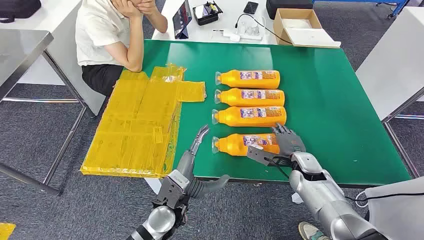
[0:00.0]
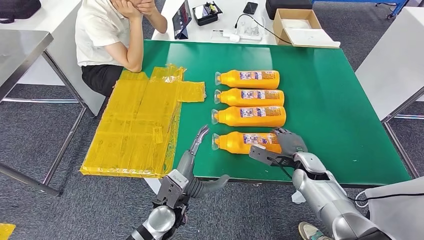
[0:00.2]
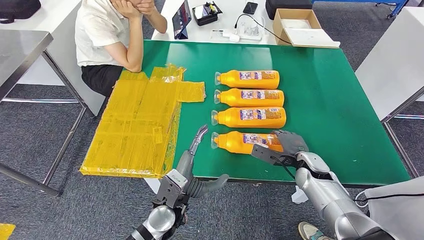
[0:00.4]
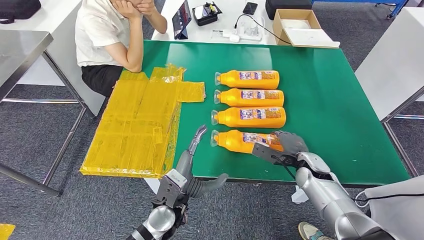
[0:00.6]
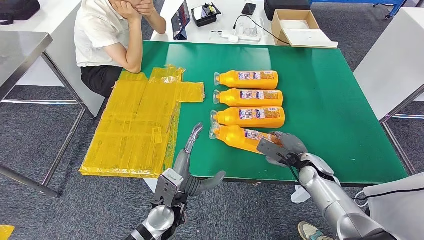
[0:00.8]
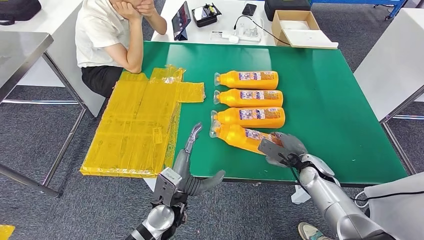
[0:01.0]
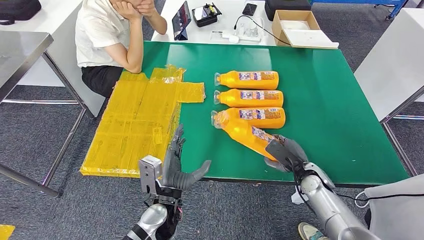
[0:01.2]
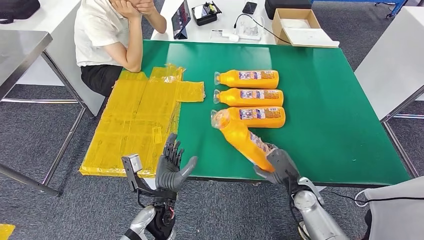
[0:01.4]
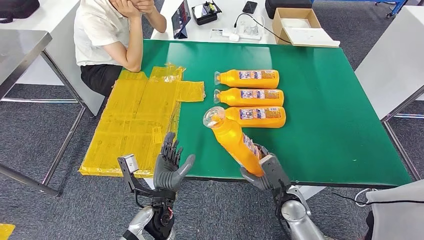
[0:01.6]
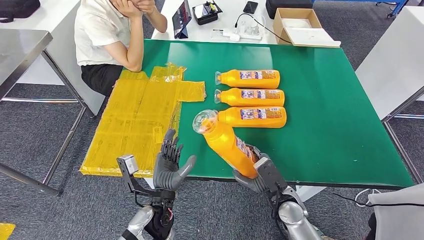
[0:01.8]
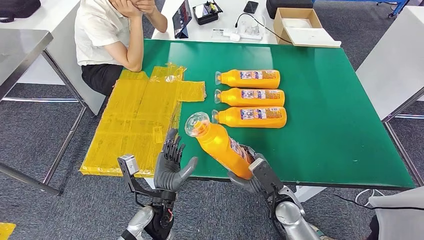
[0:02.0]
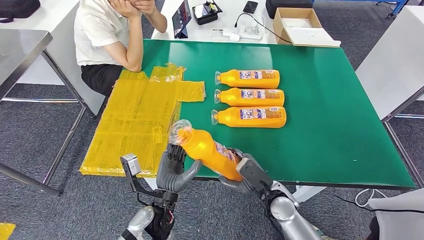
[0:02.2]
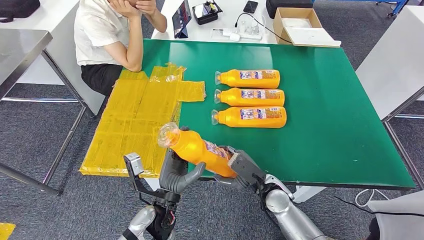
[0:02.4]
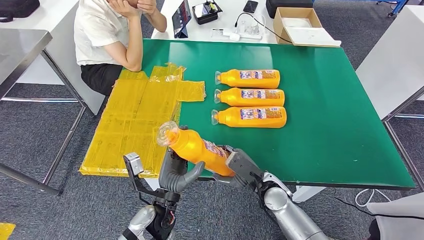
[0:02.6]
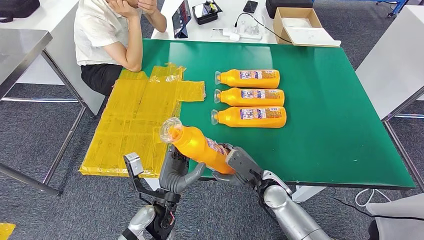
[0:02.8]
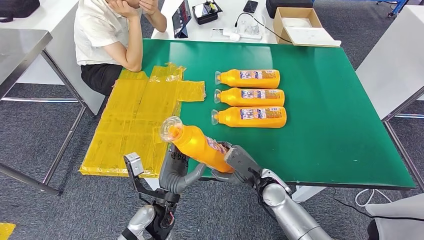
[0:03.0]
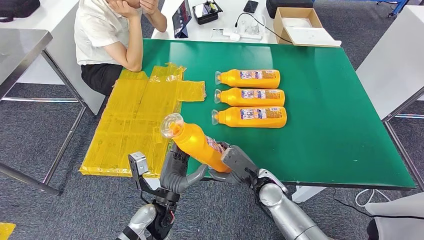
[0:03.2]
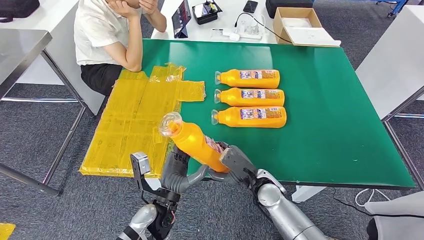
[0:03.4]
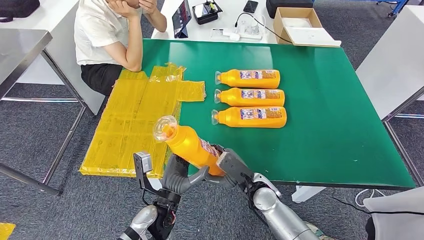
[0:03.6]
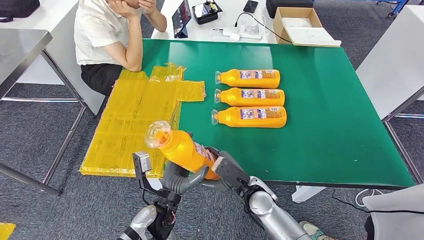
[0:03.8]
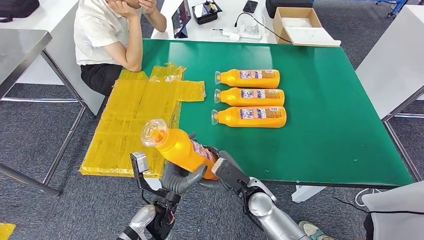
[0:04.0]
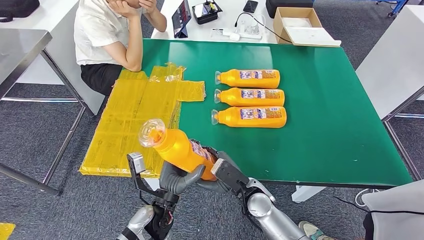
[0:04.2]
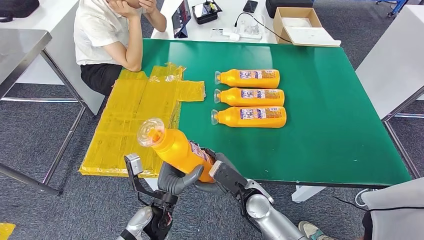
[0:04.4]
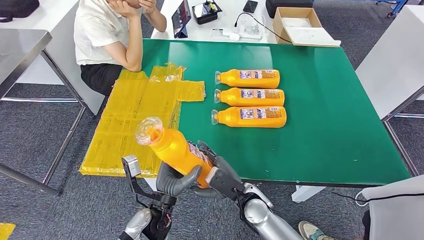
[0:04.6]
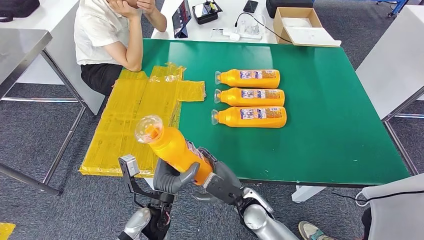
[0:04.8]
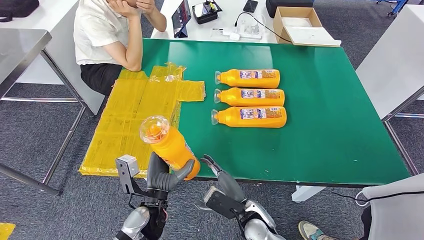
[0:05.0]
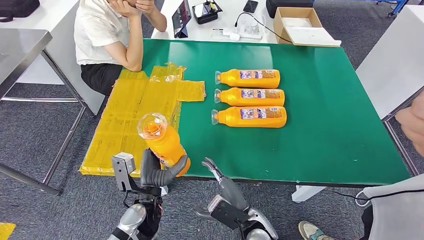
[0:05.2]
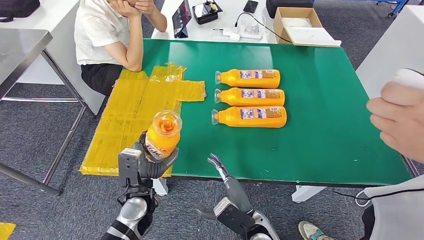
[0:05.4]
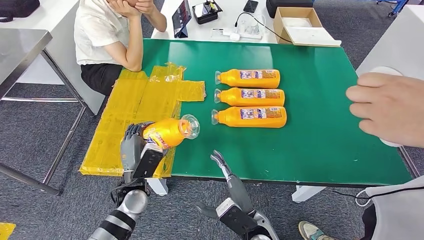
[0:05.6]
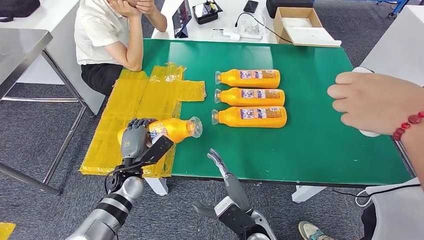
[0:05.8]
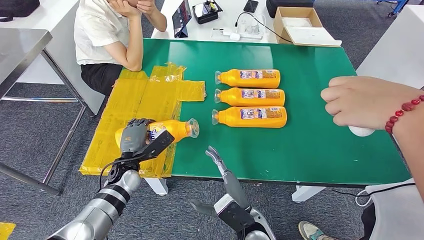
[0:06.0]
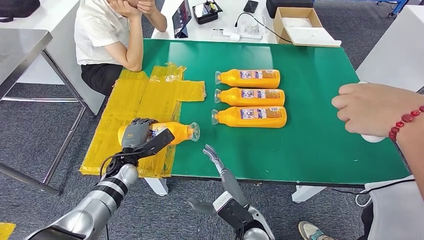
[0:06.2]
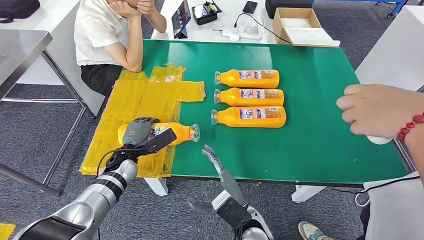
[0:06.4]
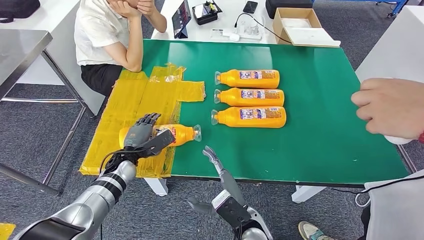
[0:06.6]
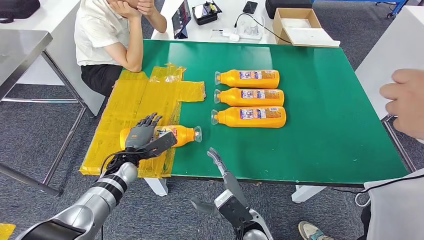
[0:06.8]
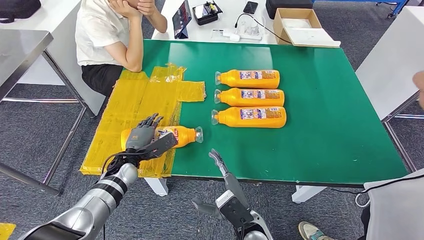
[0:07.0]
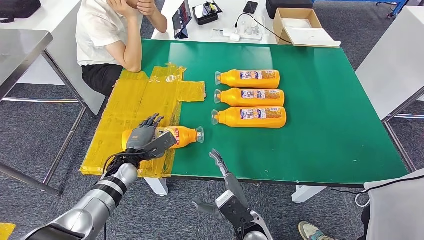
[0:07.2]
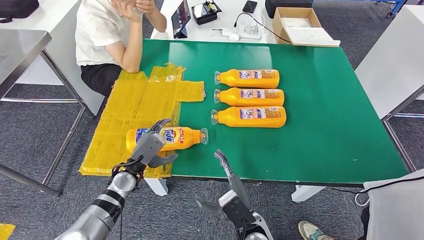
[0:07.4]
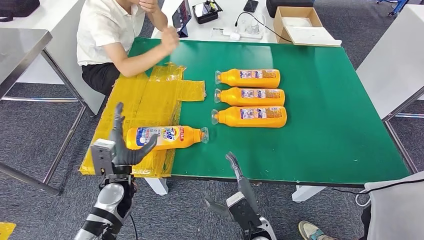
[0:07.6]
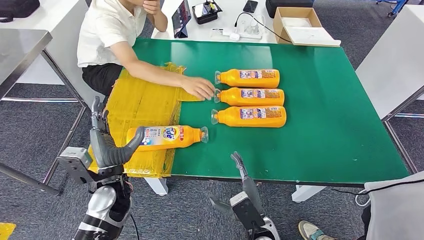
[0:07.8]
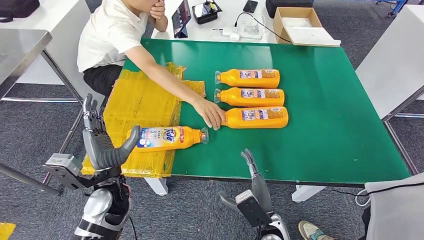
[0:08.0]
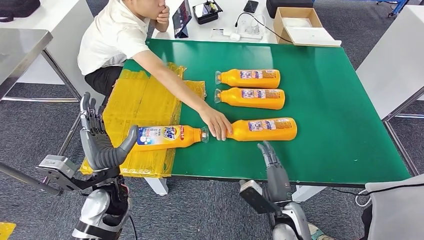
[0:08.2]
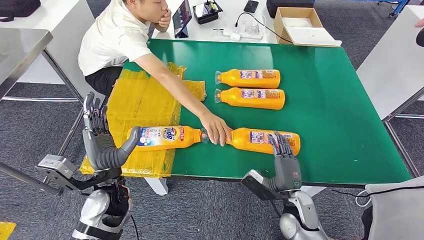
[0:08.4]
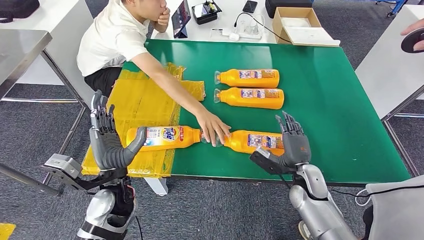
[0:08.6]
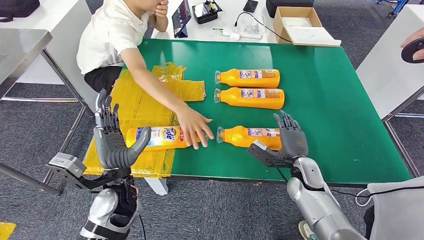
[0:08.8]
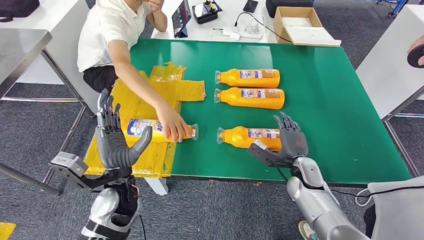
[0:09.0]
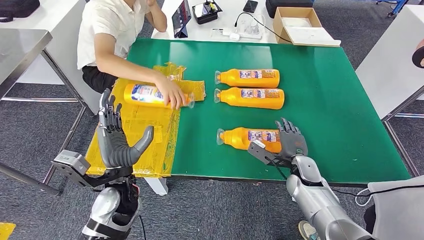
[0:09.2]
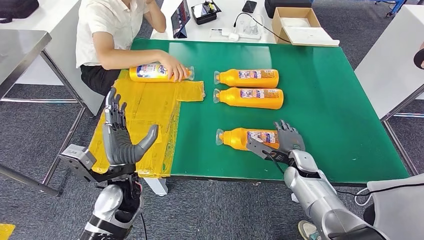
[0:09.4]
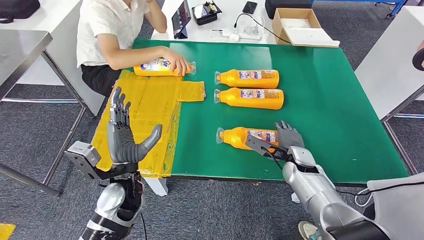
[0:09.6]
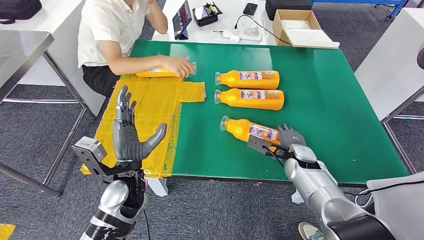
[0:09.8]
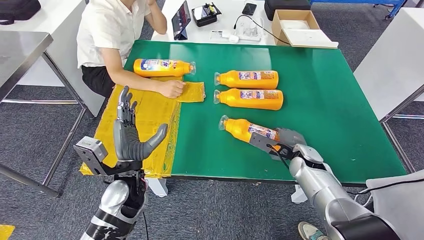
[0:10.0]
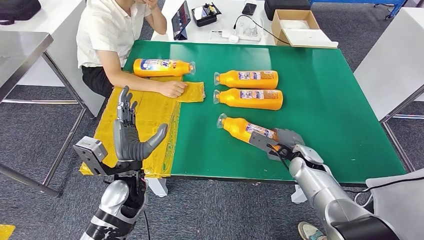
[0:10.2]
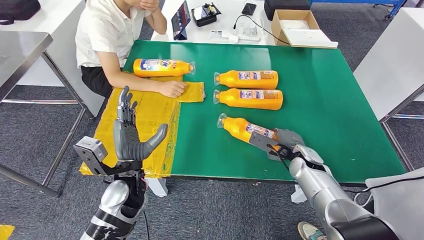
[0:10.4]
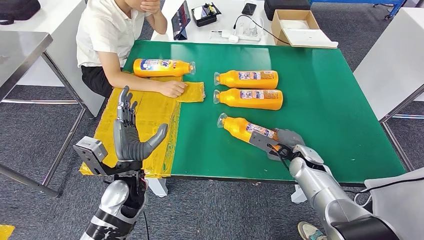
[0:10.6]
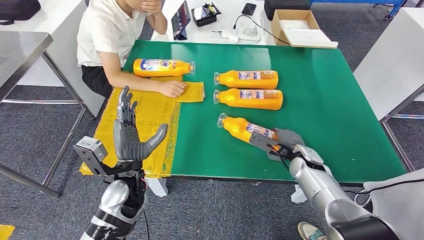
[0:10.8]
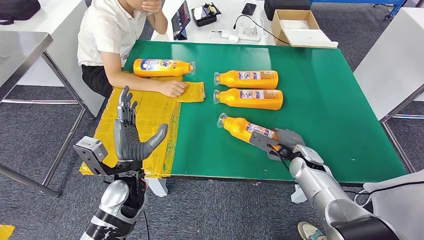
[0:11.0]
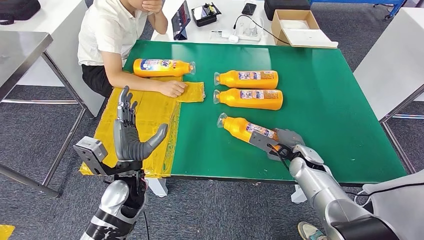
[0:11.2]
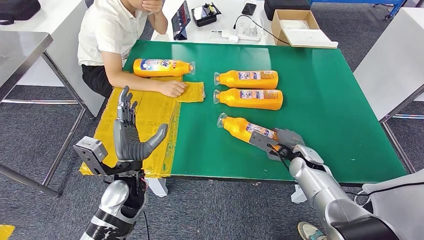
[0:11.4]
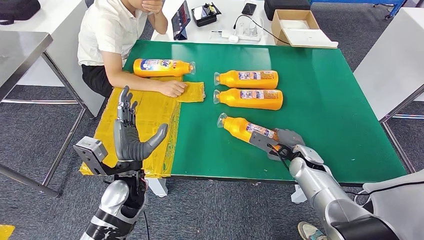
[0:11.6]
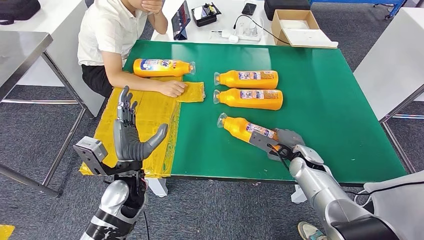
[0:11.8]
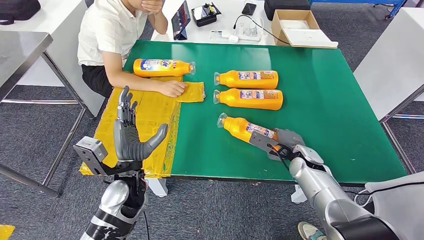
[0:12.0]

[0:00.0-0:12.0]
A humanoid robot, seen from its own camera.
Step, 0:00.0 to 0:03.2: Take the fast-moving consumer goods bottle from the table.
Step, 0:03.4 to 0:08.2: Flip the fast-moving consumer goods bottle to the front side.
0:01.6 to 0:03.0: The right hand shifts about 5 cm to the left.
0:03.0 to 0:04.4: The right hand travels to the left by about 5 cm.
0:06.0 to 0:07.6: The left hand goes some 5 cm backward.
0:10.4 to 0:12.0: Both hands stay about where they are.

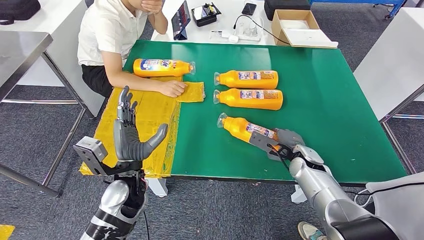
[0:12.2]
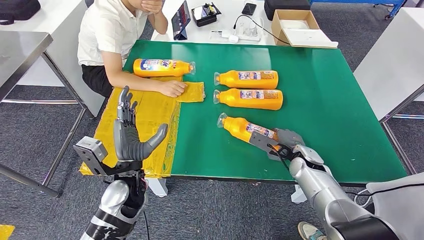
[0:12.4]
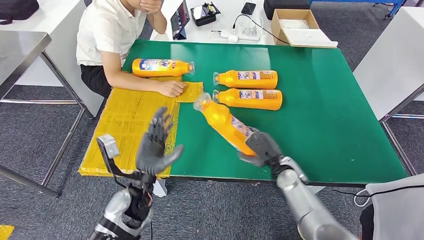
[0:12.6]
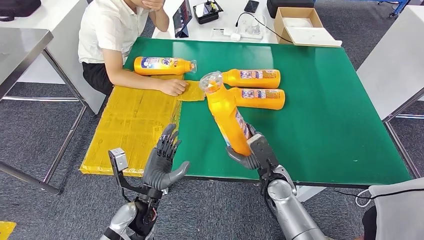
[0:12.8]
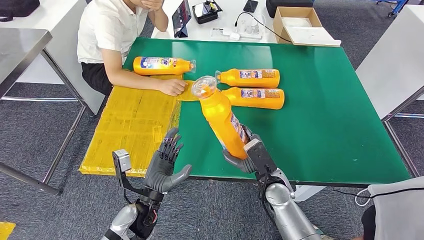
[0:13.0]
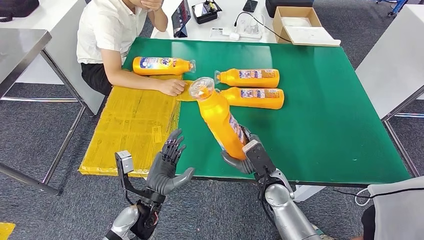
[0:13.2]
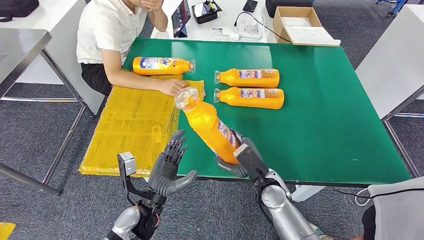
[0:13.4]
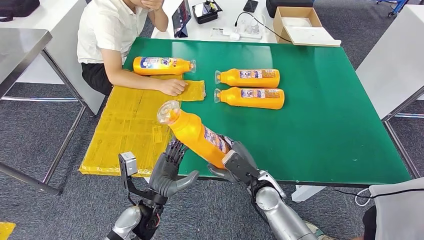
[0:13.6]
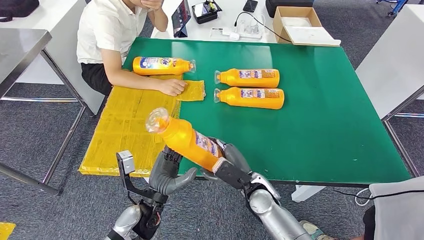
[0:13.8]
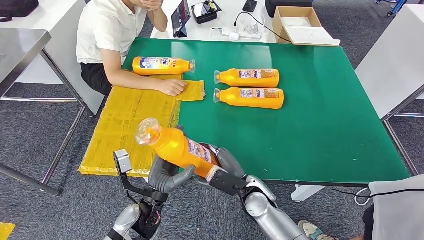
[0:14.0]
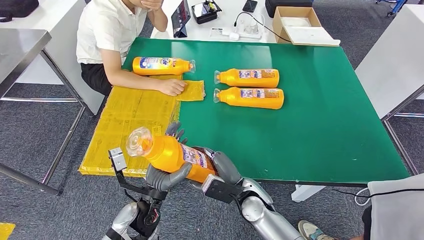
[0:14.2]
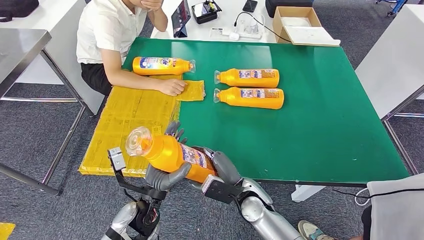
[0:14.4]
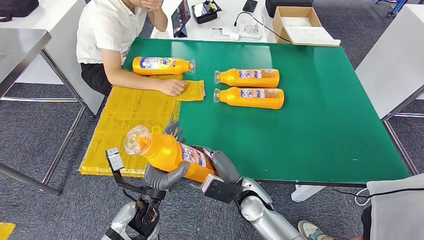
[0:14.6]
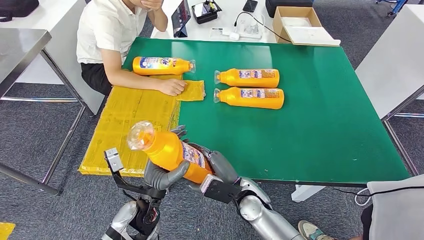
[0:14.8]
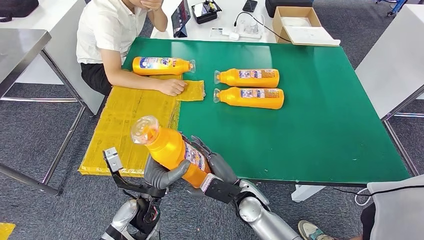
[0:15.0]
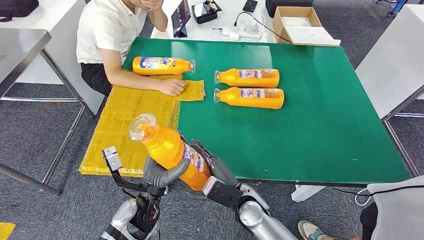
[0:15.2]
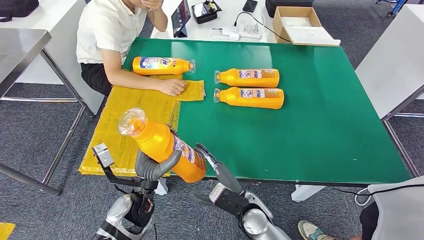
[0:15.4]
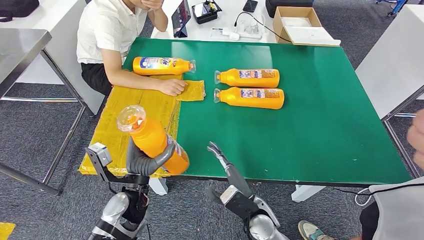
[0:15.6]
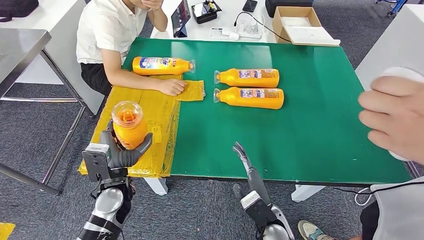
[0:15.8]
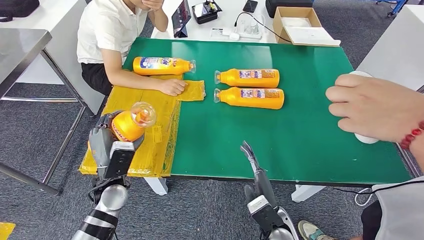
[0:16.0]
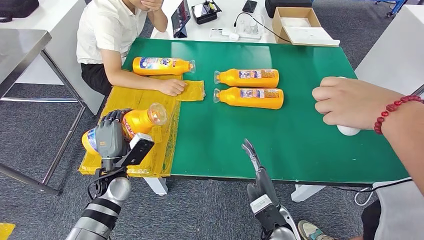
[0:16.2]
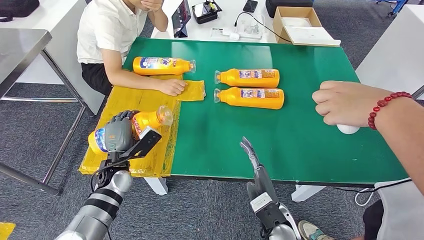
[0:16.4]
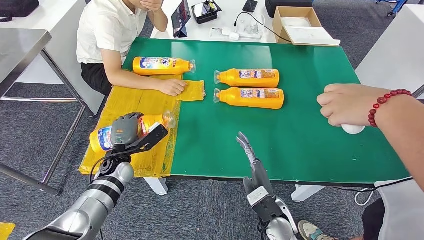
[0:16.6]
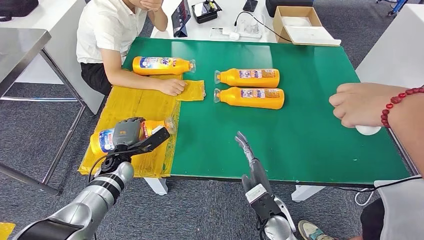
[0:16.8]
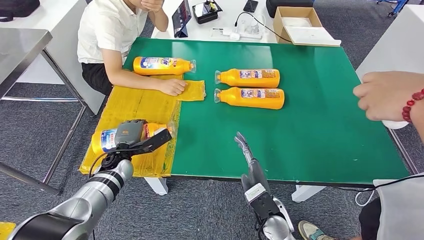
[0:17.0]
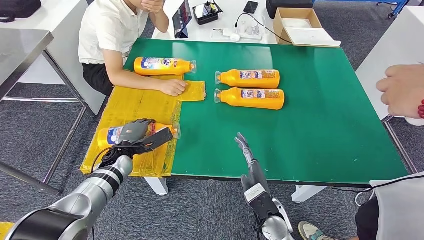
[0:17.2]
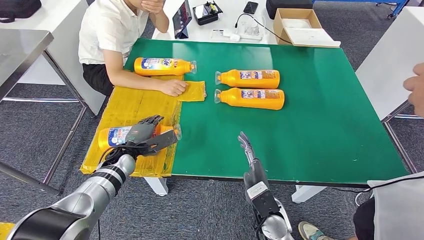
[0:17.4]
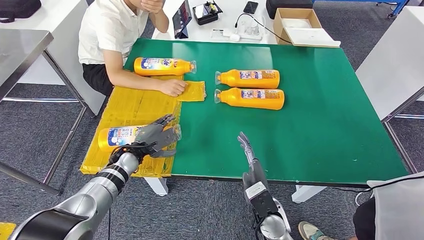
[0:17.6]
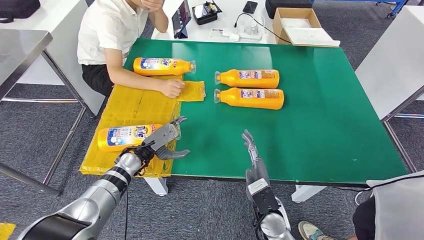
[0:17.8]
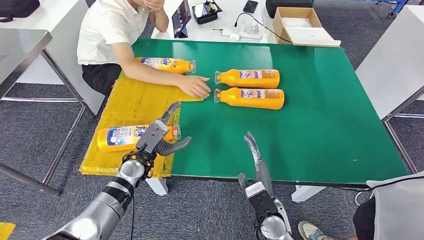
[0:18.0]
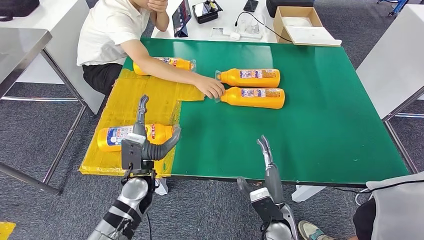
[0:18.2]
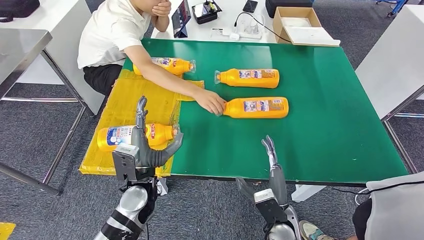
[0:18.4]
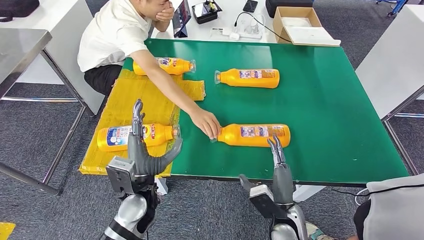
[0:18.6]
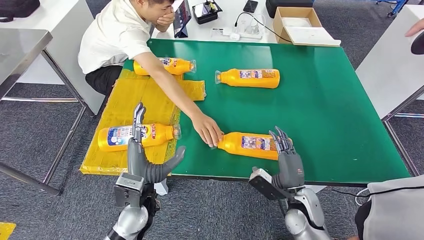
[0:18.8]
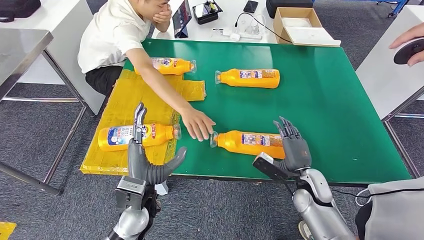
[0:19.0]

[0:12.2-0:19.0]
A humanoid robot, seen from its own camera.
Step, 0:12.2 to 0:14.6: Pick up the fast-moving consumer goods bottle from the table.
Step, 0:14.8 to 0:18.4: Flip the fast-moving consumer goods bottle to the front side.
0:13.6 to 0:15.0: The right hand shifts by roughly 5 cm.
0:15.0 to 0:16.2: The left hand goes about 15 cm to the left and forward; the right hand shifts some 10 cm to the right and backward.
